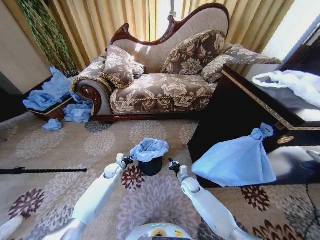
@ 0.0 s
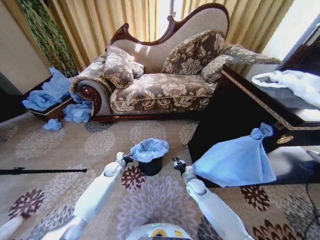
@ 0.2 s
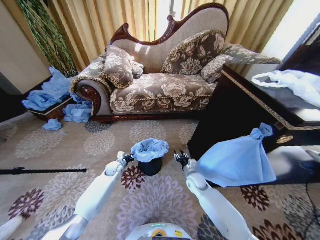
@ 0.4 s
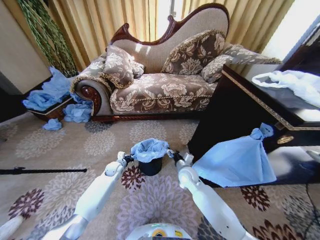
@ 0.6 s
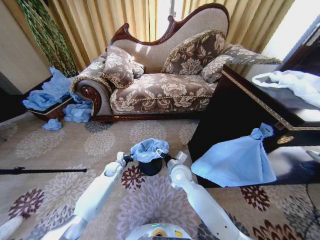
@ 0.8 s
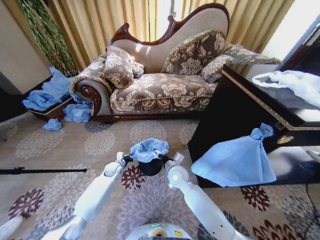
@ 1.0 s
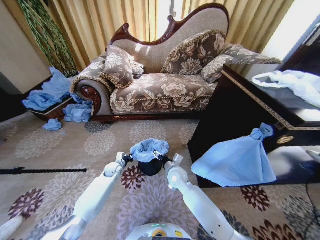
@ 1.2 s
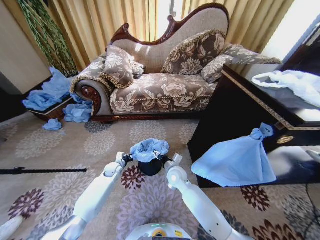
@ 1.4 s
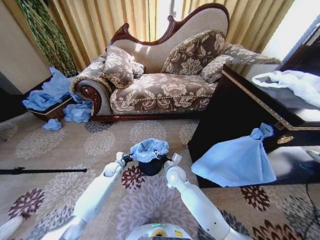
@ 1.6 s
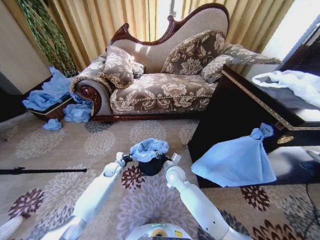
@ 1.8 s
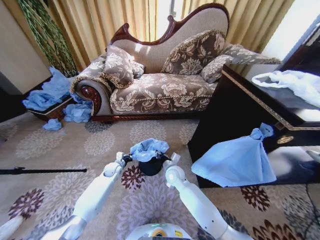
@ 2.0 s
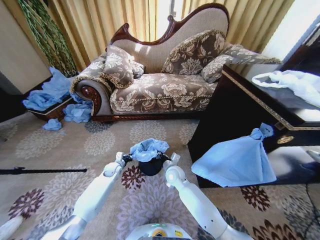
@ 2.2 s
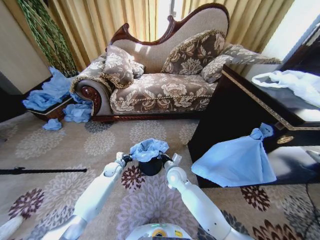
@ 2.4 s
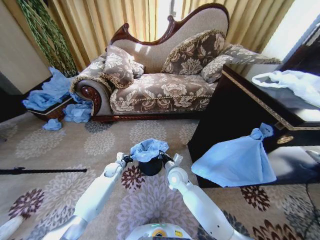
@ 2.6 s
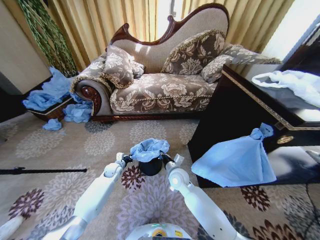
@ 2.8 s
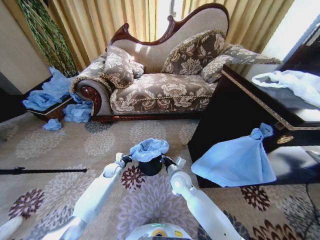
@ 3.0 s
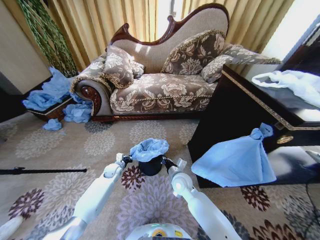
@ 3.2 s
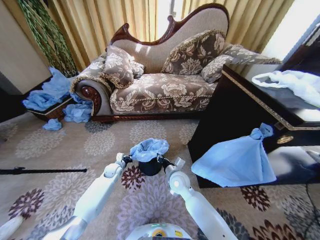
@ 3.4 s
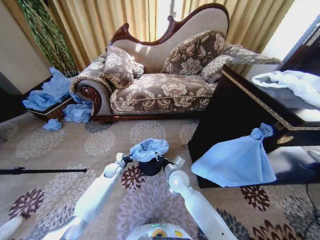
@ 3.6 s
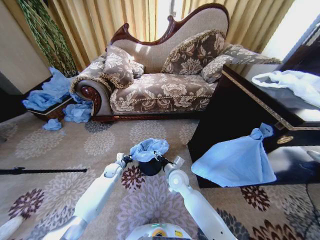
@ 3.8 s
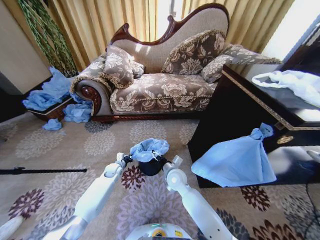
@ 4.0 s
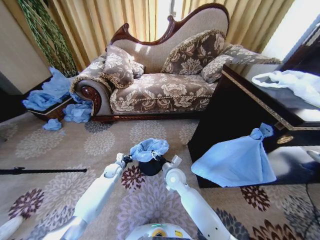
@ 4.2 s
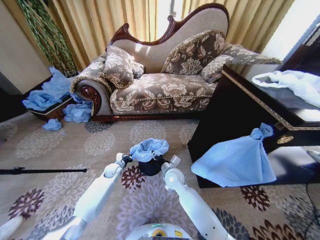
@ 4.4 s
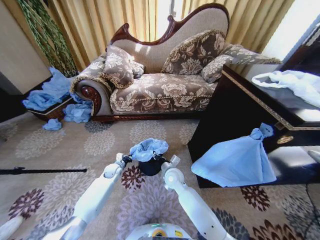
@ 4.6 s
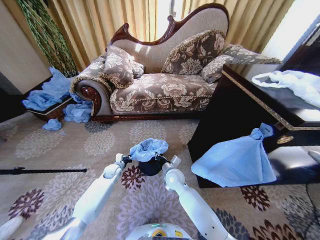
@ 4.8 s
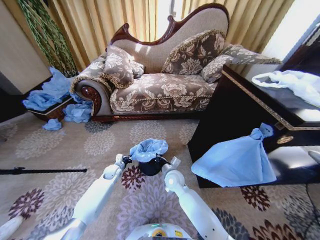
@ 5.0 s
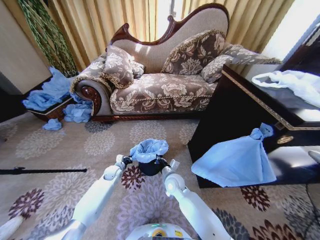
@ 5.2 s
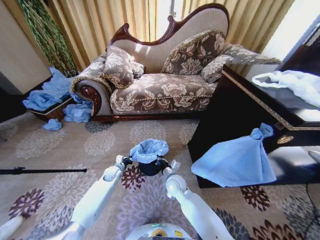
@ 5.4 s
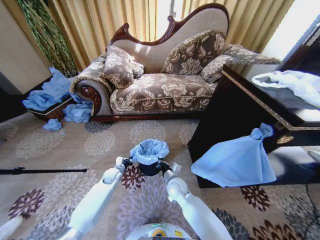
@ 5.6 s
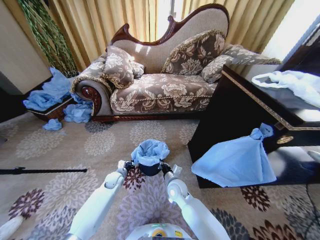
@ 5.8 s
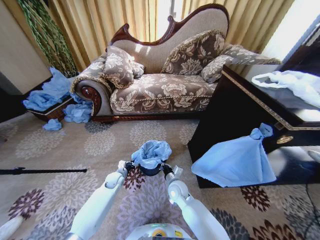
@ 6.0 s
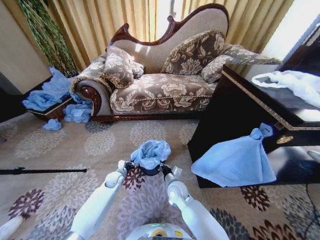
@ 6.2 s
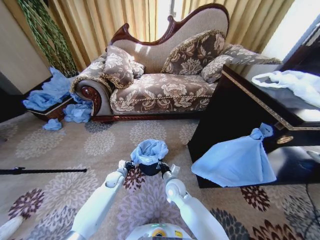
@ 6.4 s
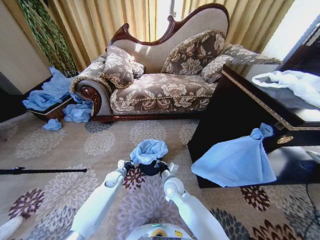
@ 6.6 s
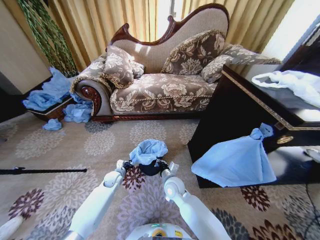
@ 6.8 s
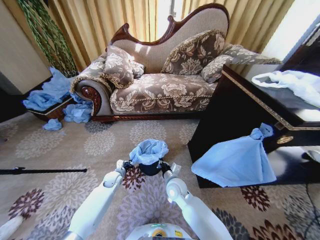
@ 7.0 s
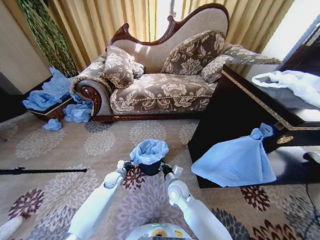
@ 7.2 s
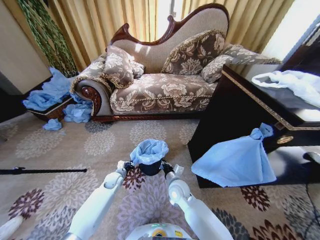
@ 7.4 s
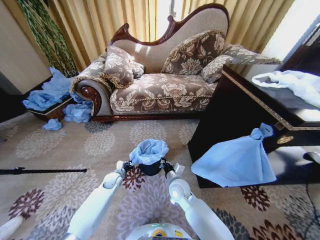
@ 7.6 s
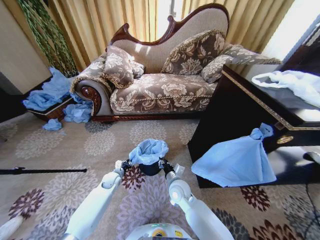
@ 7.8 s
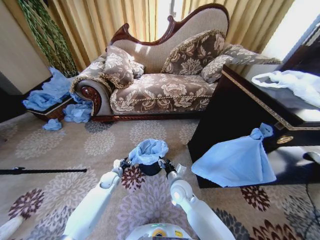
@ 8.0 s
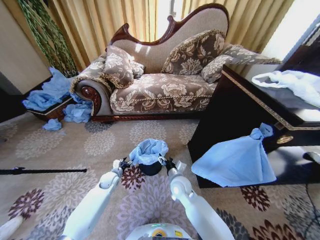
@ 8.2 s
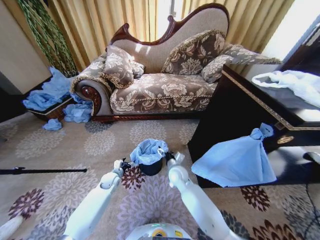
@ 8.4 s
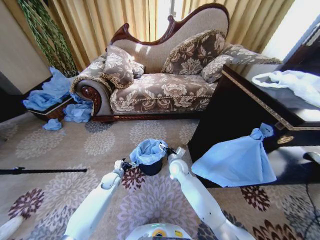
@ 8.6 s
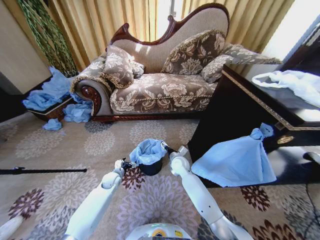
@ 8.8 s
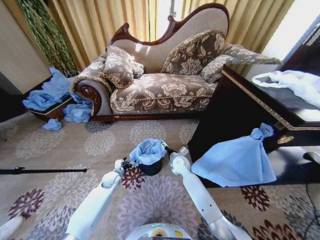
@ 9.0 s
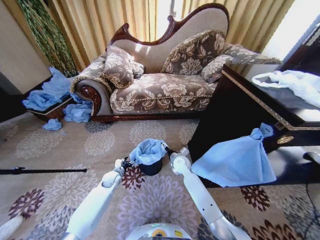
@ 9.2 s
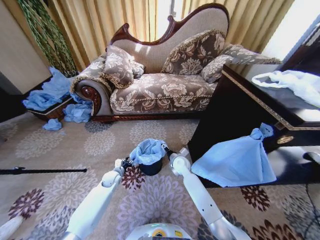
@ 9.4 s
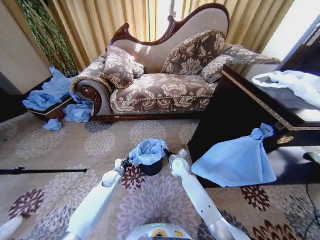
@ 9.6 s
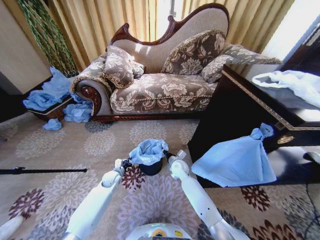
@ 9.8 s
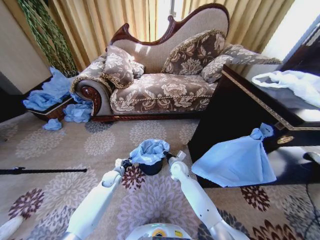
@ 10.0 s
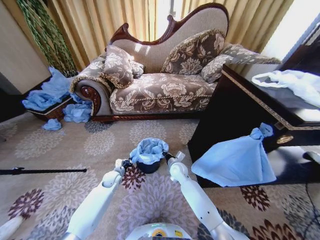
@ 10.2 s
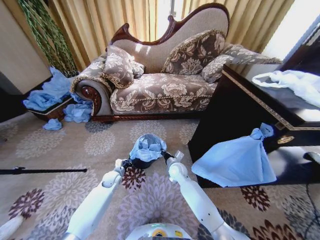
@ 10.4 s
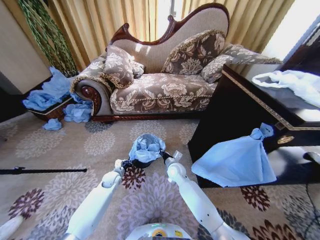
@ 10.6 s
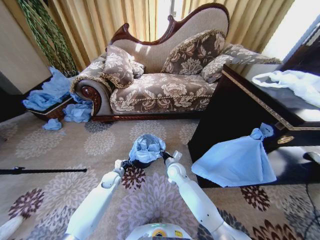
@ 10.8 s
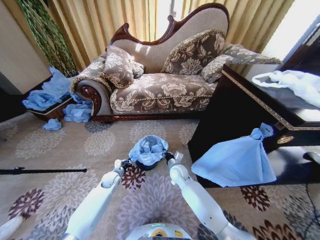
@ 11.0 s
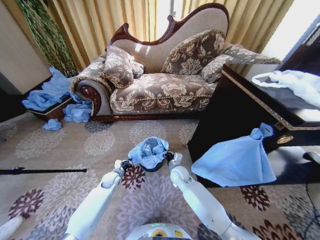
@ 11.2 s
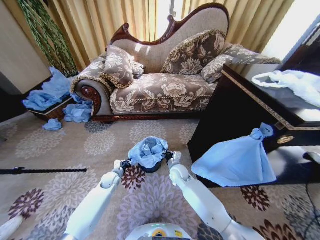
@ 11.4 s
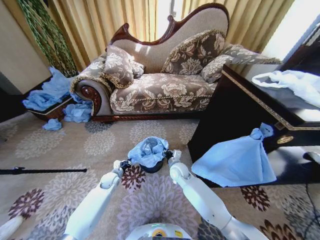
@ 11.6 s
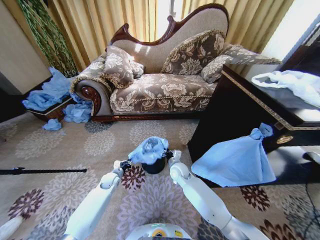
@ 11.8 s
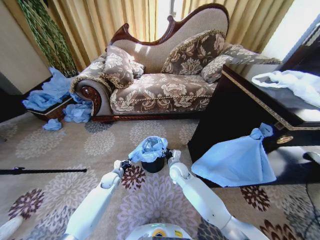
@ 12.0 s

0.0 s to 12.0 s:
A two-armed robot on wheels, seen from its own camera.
Task of the whole recording: Place a garbage bag over the trash bin.
0.0 to 1.6 s: The right gripper travels upward and to the left by some 20 cm, and opens up.
1.6 to 3.0 s: The right gripper closes.
3.0 to 4.4 s: The right gripper opens up.
4.4 to 6.0 s: The right gripper goes roughly 5 cm downward, and closes its fingers; the left gripper moves approximately 5 cm.
6.0 to 7.6 s: The grippers move only a little.
7.6 to 9.0 s: The right gripper shifts approximately 15 cm forward, and opens up; the left gripper opens.
9.0 to 10.4 s: The left gripper closes up; the right gripper closes its fingers.

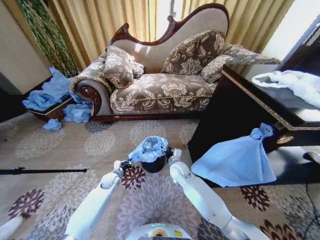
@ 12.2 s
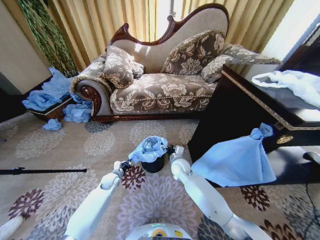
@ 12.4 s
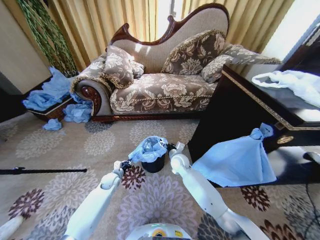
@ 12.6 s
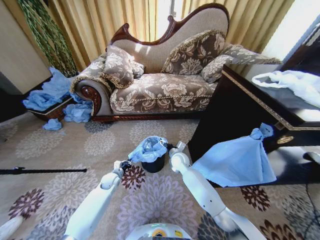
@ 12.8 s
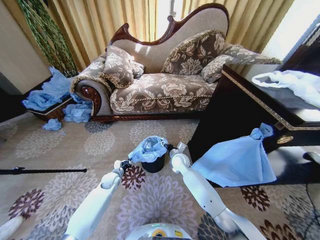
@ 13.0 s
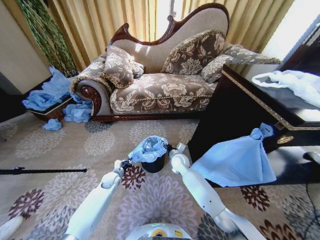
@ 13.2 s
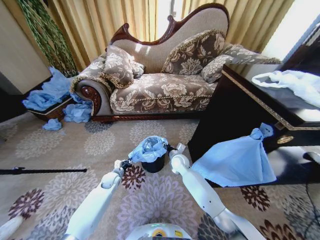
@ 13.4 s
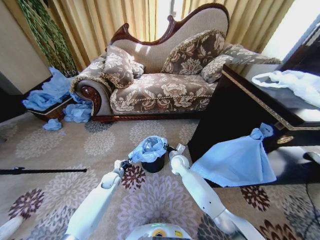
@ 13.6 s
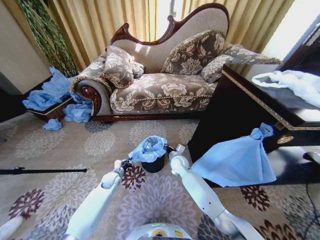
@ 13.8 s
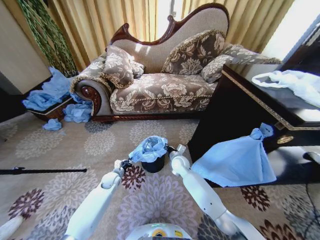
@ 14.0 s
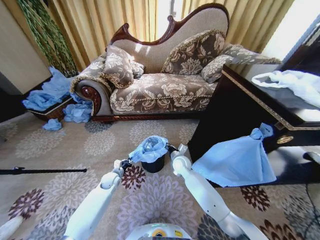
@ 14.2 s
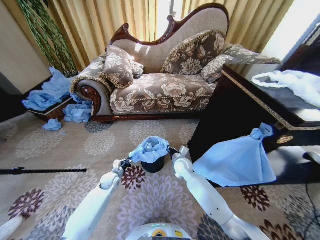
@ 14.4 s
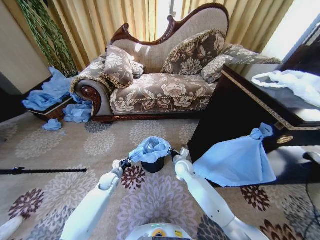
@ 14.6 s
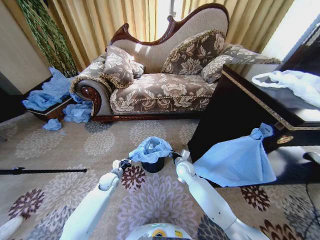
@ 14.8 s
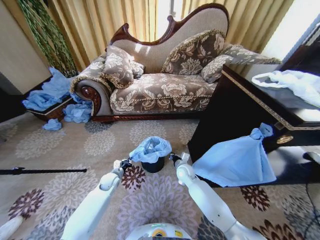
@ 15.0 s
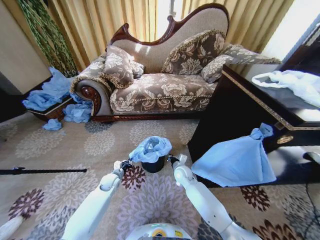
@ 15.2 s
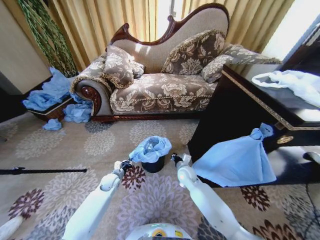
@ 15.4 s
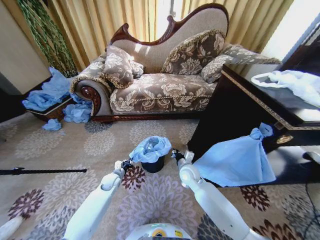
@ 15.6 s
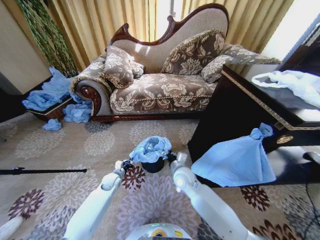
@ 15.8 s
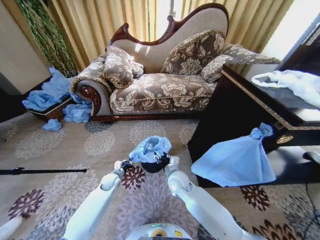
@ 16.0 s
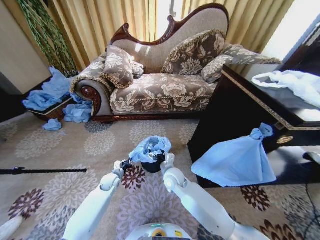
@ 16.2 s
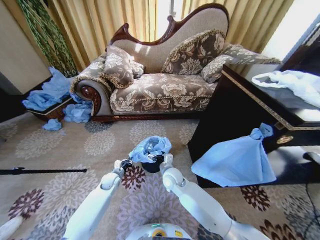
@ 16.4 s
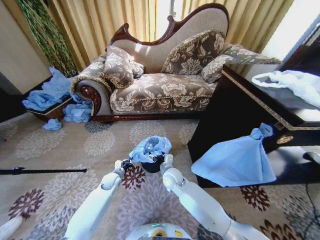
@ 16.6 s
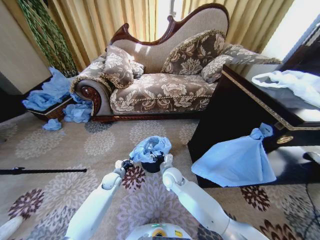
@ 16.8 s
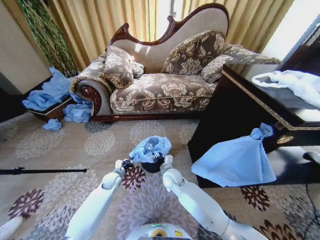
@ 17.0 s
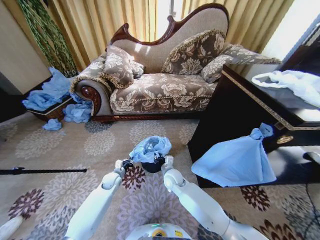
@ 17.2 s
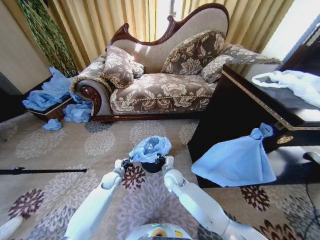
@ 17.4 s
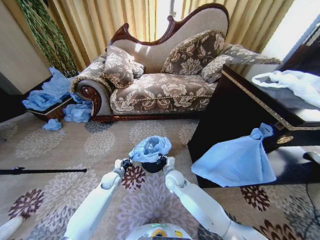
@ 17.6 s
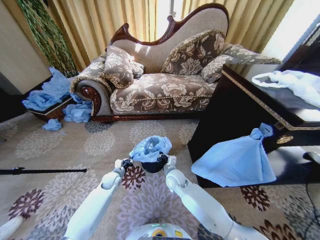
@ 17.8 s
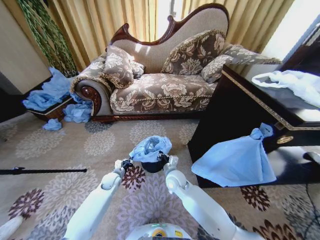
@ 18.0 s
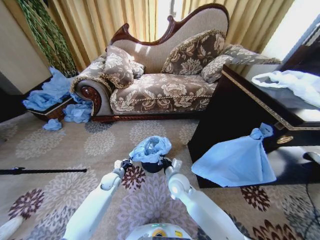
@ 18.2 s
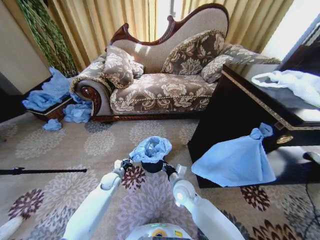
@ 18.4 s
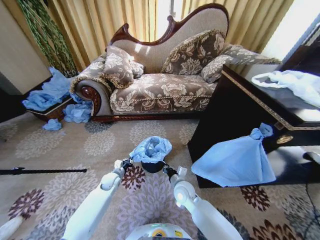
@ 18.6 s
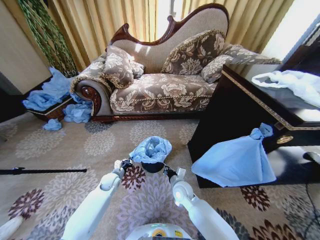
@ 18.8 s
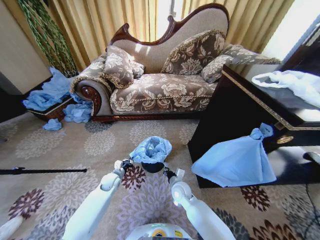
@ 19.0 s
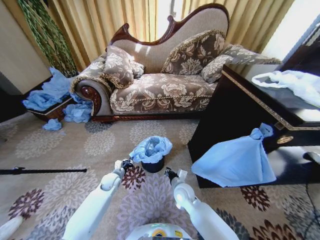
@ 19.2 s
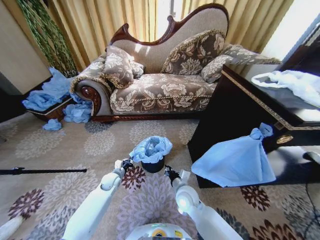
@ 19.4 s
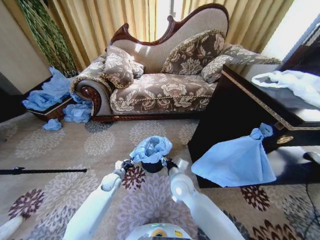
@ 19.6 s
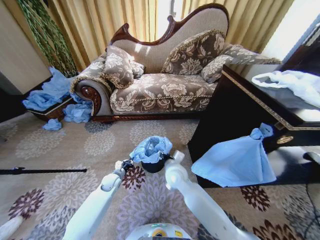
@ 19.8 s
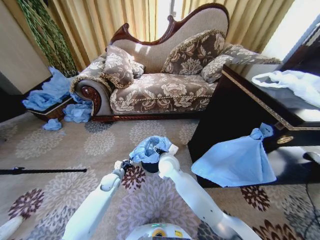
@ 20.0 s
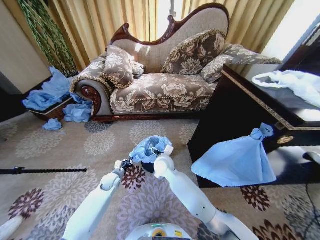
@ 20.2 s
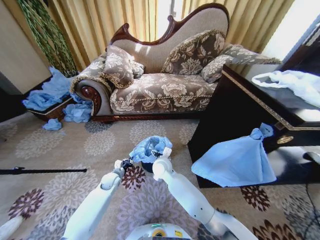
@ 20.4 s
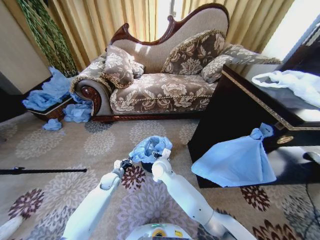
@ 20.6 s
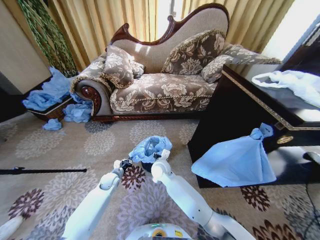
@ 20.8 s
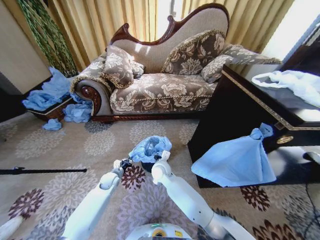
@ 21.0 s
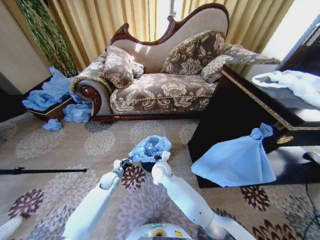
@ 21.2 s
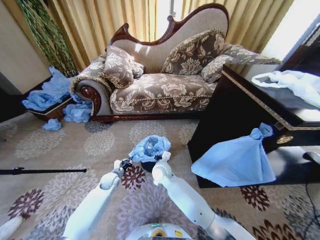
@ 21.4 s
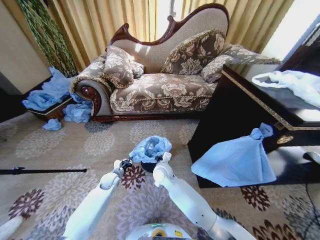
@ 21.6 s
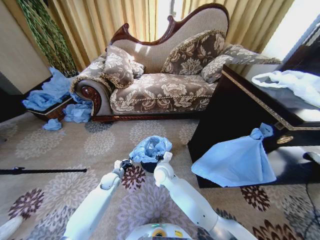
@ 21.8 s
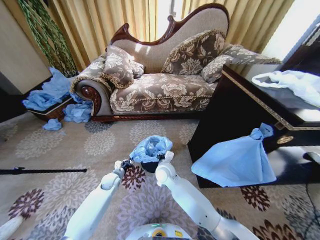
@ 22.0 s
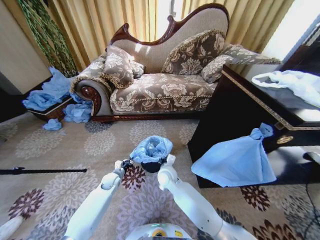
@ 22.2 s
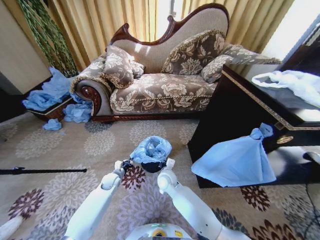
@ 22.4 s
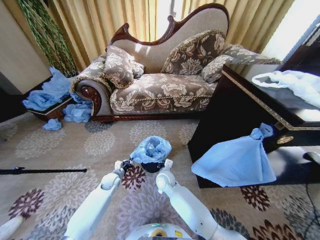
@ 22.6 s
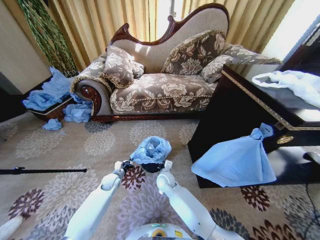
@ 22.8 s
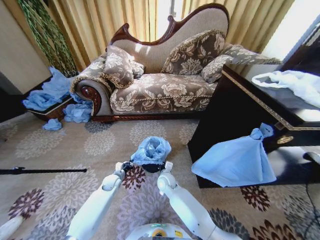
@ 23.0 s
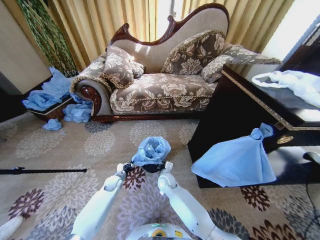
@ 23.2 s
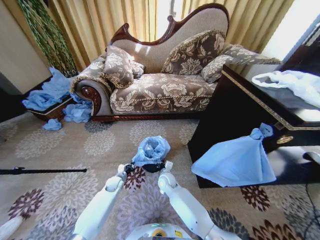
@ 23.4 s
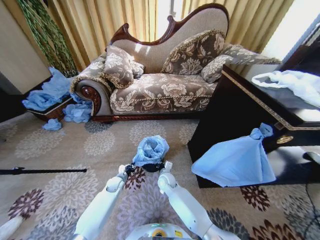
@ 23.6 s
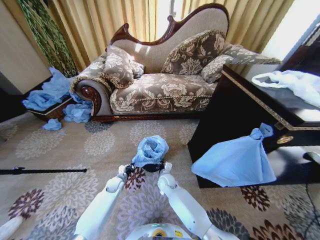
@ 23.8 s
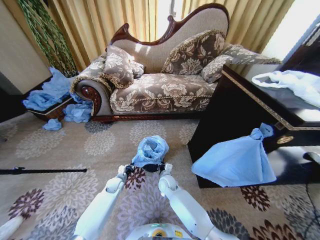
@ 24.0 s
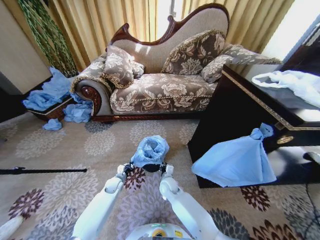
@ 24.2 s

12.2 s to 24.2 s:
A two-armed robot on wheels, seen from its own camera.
Task of the whole recording: Place a garbage bag over the trash bin.
12.2 to 13.8 s: The right gripper closes up.
13.8 to 15.2 s: The right gripper ends up roughly 5 cm from where it was.
15.2 to 16.6 s: The right gripper shifts approximately 5 cm to the left, and opens up.
16.6 to 18.2 s: The right gripper closes.
18.2 to 19.8 s: The right gripper shifts roughly 5 cm upward, and opens up.
19.8 to 21.2 s: The right gripper moves to the left, roughly 5 cm, and closes up.
21.2 to 22.6 s: The right gripper shifts approximately 5 cm downward.
22.6 to 24.2 s: The right gripper moves downward, about 5 cm.
